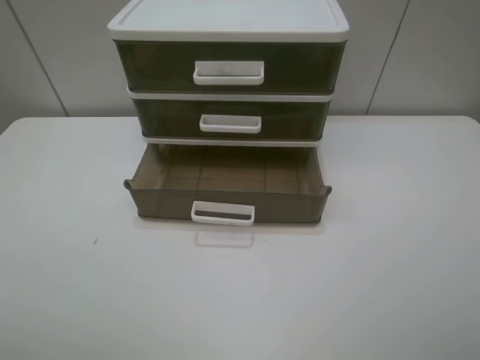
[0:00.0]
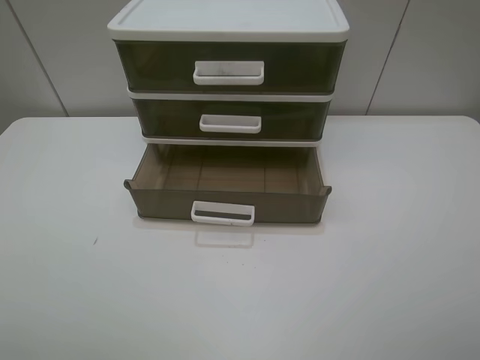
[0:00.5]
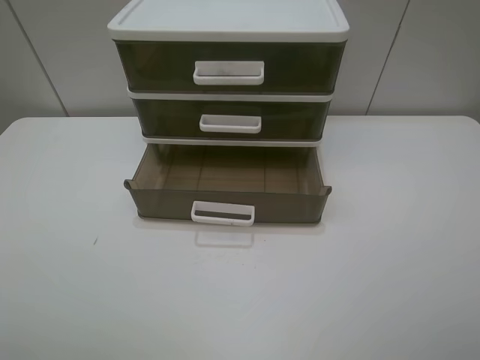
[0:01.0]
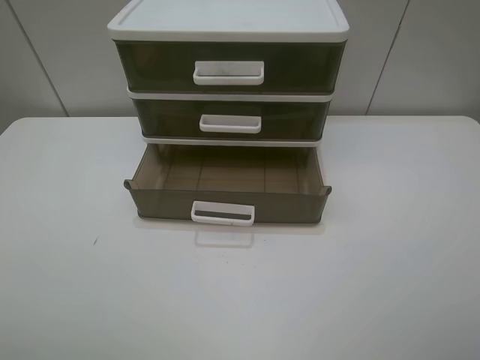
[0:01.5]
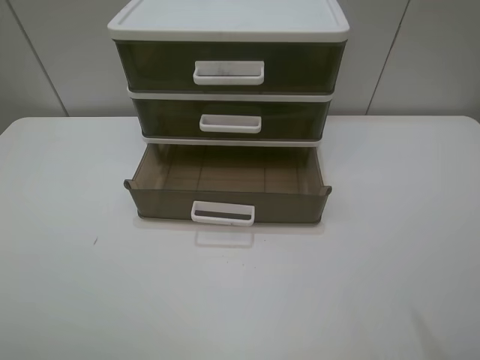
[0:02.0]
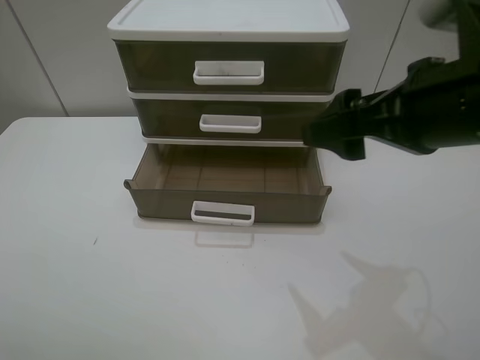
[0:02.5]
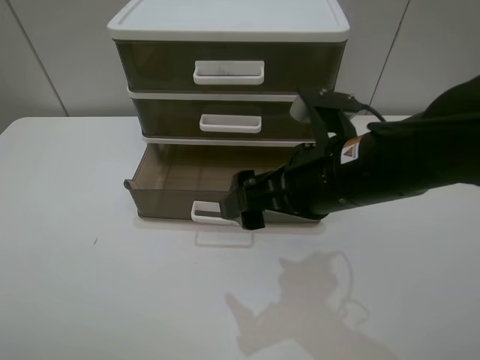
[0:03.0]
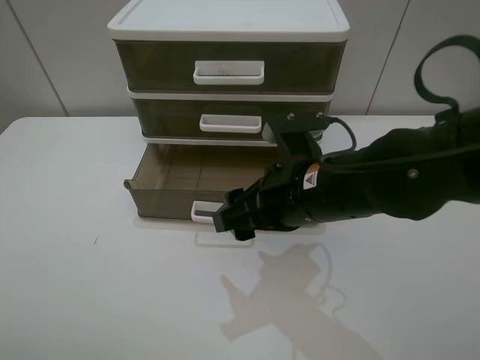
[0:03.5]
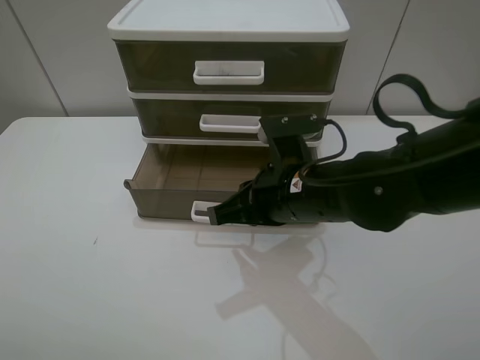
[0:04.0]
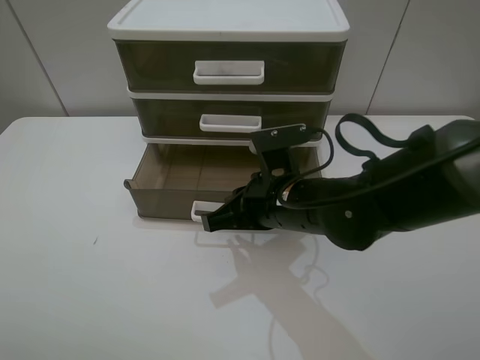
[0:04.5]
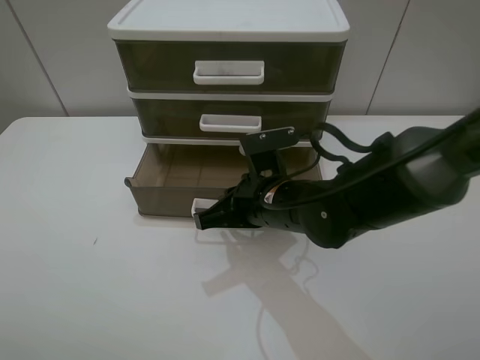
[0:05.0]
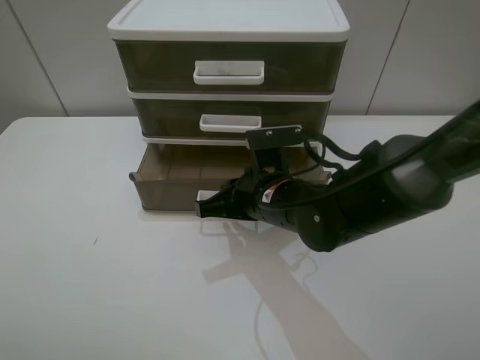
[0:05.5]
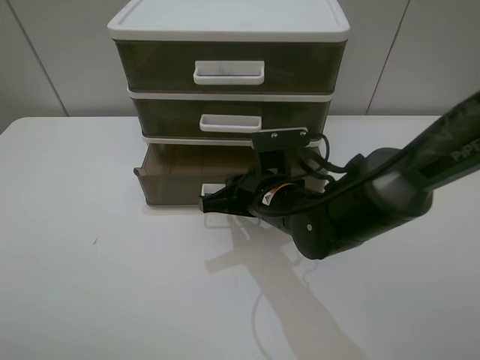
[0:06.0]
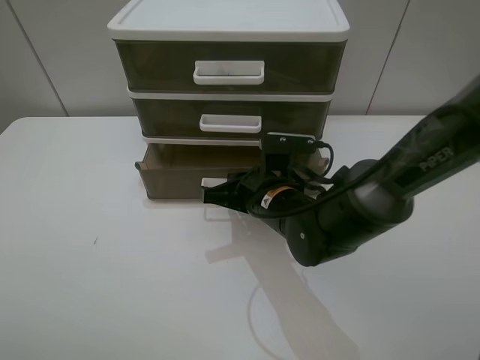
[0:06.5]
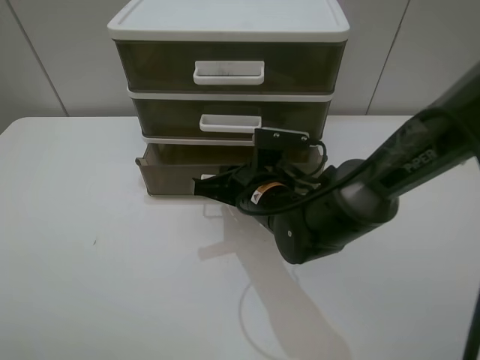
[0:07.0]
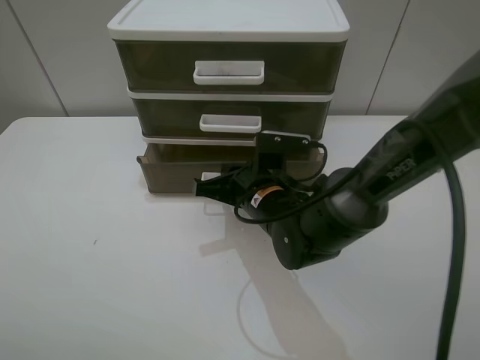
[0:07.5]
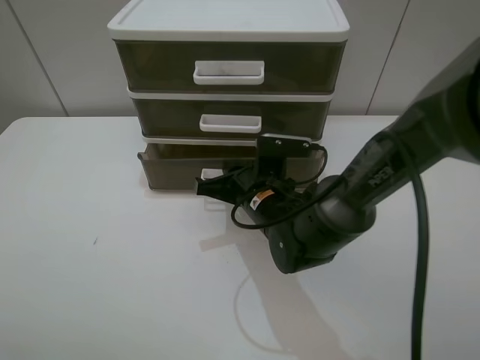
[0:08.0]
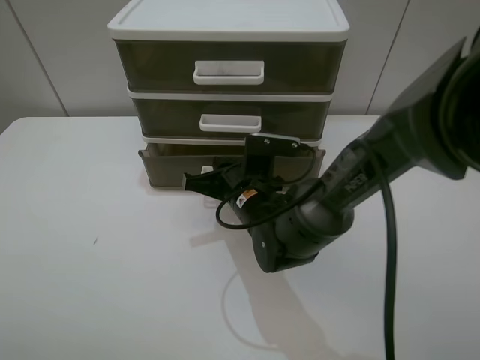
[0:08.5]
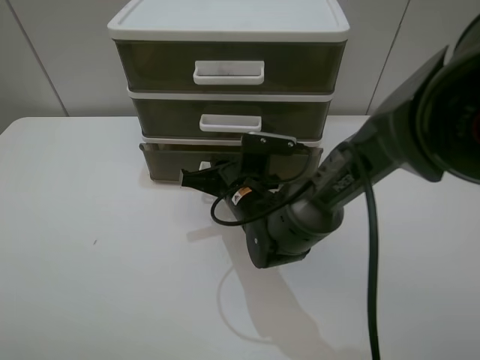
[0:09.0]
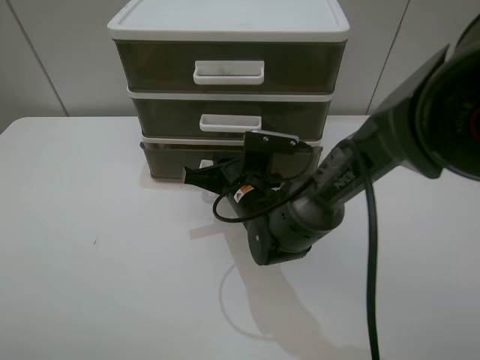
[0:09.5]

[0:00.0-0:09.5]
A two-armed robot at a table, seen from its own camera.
Task of the whole recording: close the bottom drawer.
Step, 0:00.0 to 0:04.5: Use the right gripper to contact the bottom layer of the storage cabinet.
0:02.0 to 0:04.0: The right gripper travels to the left, downward and forward by about 30 cm, and closes.
0:04.0 to 0:05.5: The right gripper shifts by roughly 5 cm.
0:05.5 to 0:07.5: The grippers stay close to where they were, moving slightly.
0:07.5 to 0:09.5: The grippers make only small movements.

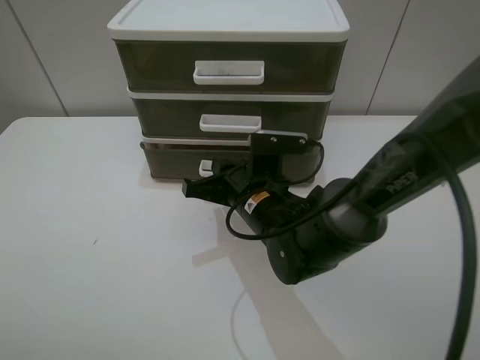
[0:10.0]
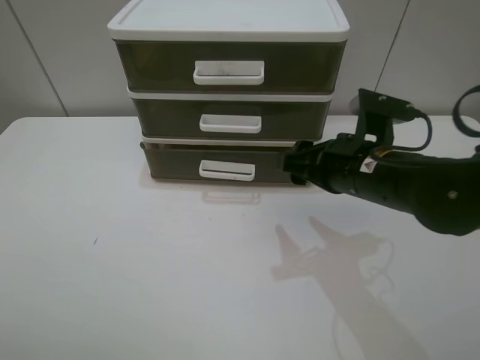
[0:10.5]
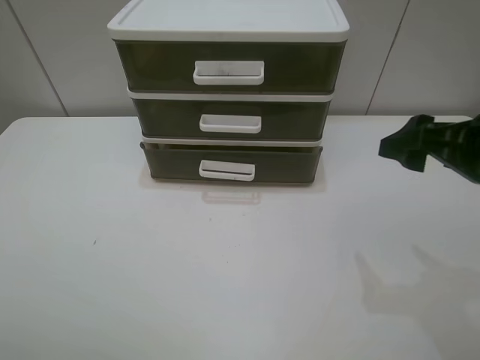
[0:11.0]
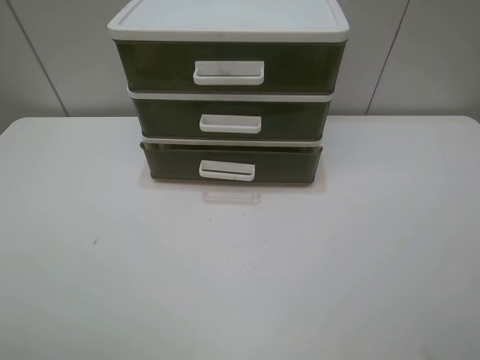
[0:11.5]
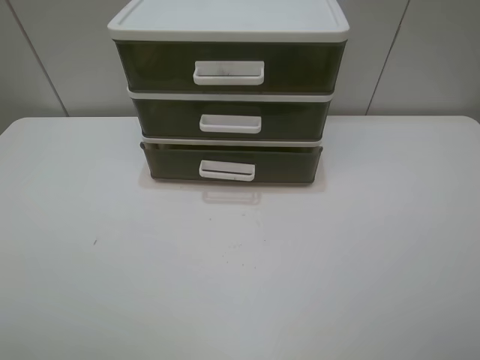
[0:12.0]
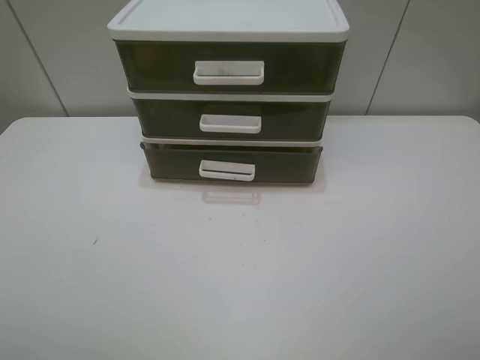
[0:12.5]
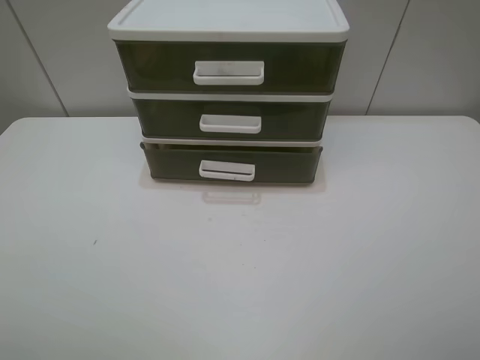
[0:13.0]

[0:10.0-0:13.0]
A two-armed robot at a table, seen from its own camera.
Task of the whole recording: close the bottom drawer.
0:10.0 to 0:11.5: The right gripper heads to the right, upward and backward, covering some 40 cm, and opens.
